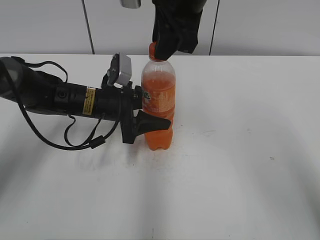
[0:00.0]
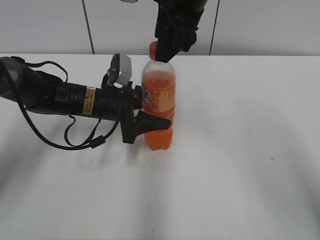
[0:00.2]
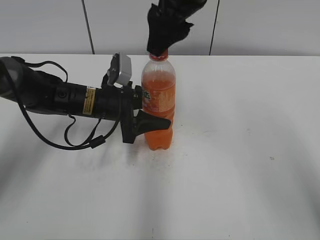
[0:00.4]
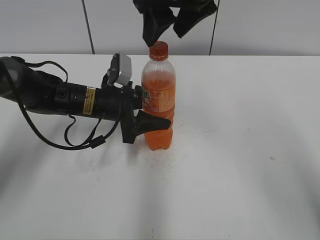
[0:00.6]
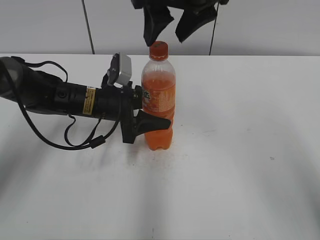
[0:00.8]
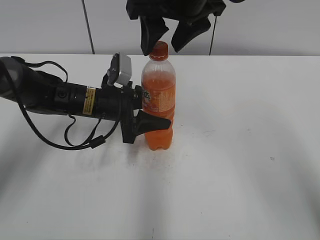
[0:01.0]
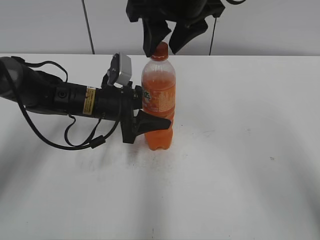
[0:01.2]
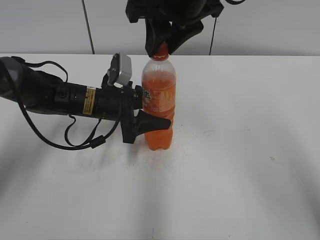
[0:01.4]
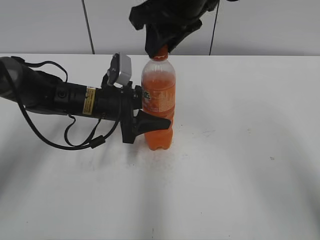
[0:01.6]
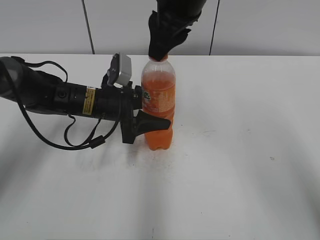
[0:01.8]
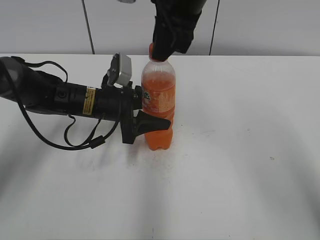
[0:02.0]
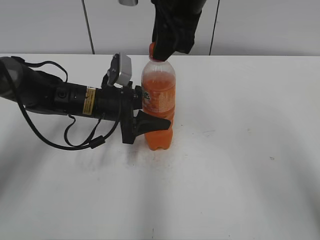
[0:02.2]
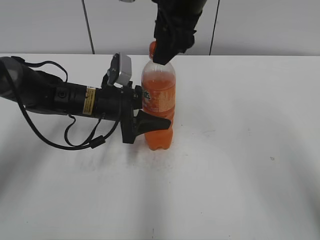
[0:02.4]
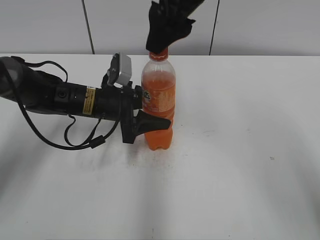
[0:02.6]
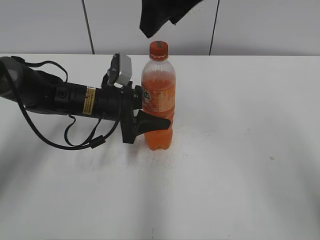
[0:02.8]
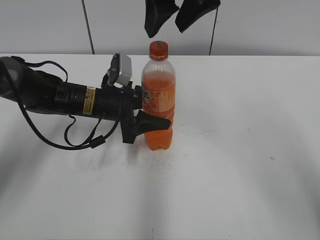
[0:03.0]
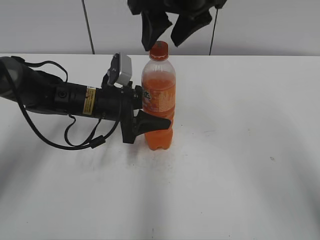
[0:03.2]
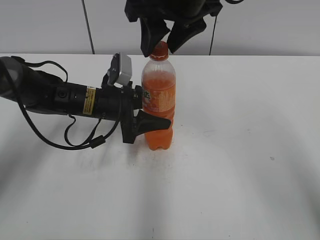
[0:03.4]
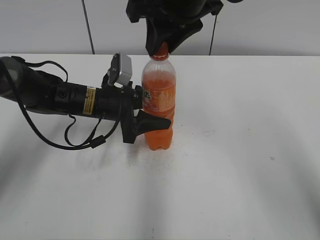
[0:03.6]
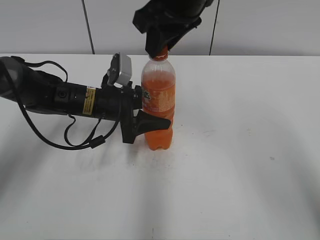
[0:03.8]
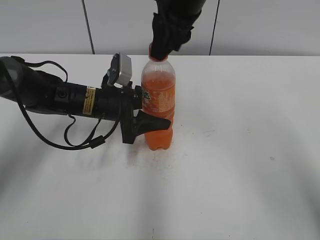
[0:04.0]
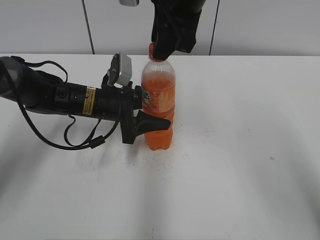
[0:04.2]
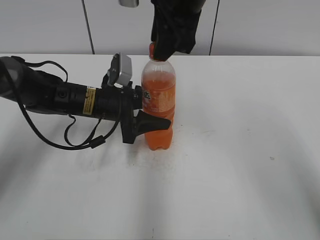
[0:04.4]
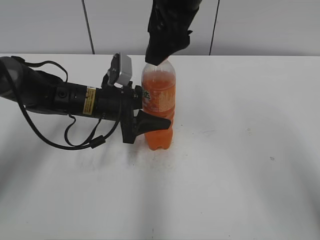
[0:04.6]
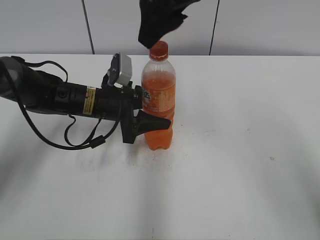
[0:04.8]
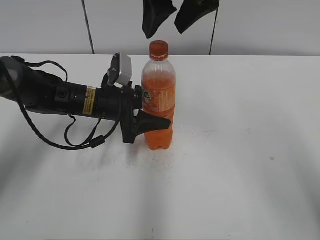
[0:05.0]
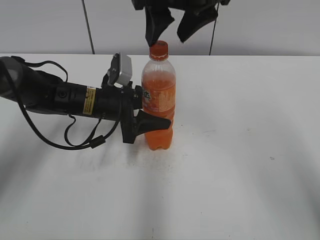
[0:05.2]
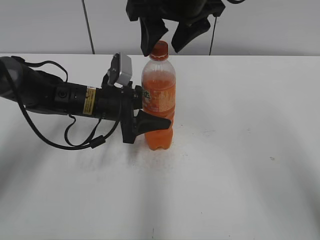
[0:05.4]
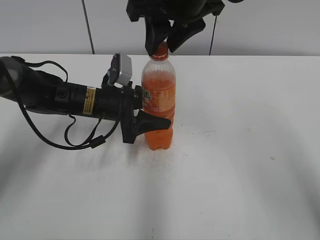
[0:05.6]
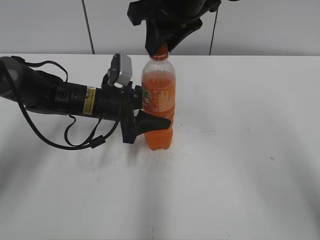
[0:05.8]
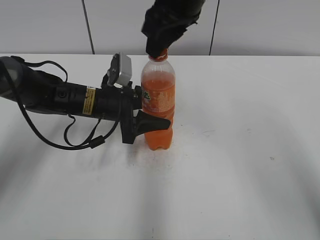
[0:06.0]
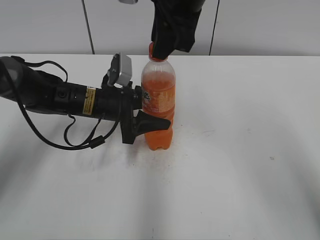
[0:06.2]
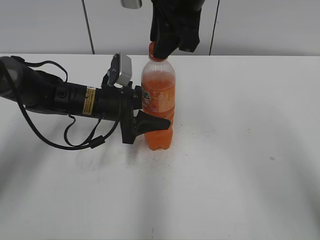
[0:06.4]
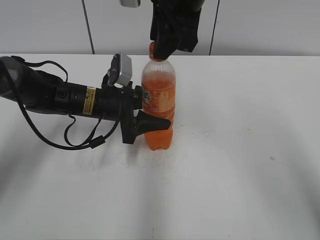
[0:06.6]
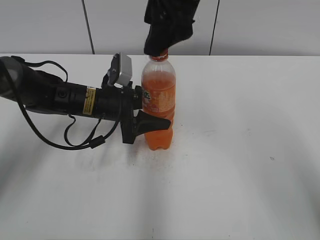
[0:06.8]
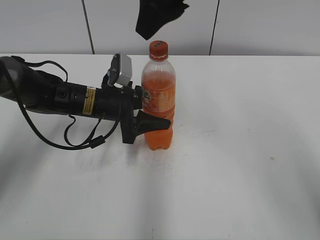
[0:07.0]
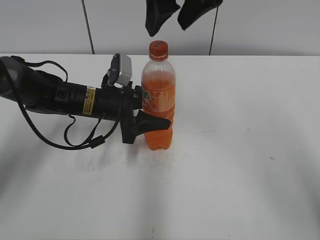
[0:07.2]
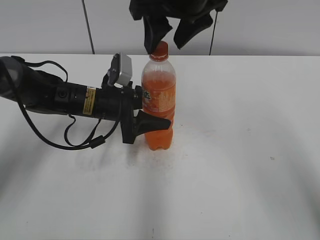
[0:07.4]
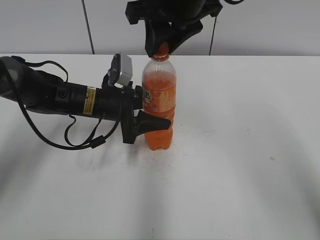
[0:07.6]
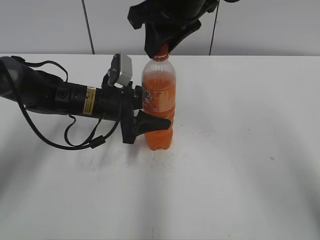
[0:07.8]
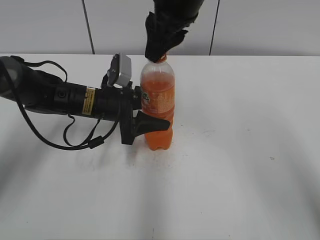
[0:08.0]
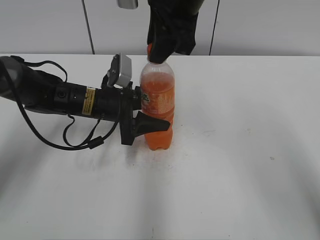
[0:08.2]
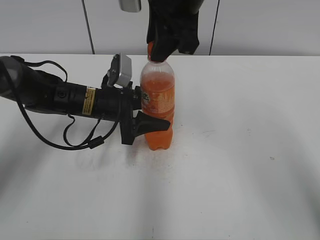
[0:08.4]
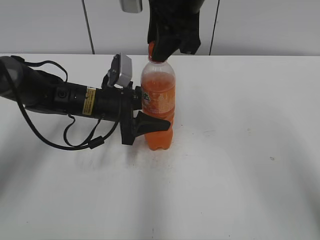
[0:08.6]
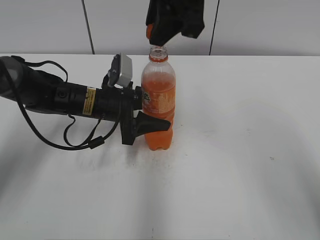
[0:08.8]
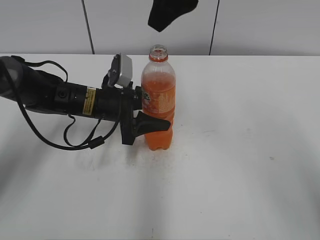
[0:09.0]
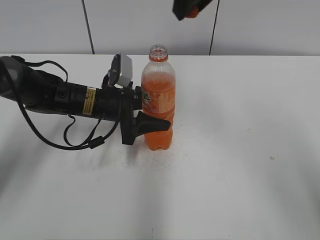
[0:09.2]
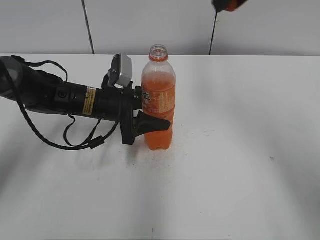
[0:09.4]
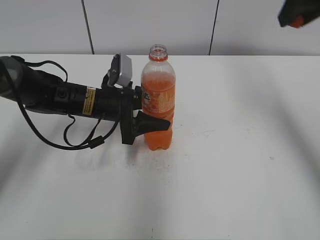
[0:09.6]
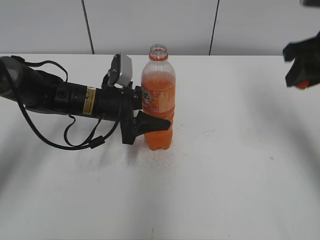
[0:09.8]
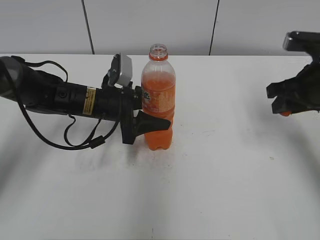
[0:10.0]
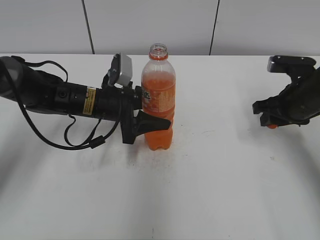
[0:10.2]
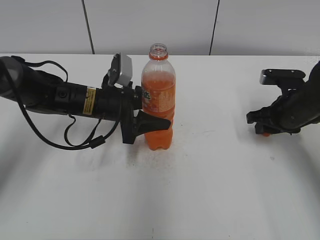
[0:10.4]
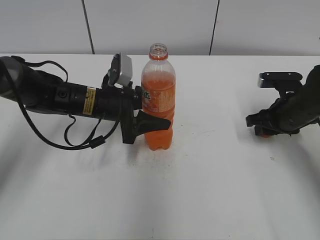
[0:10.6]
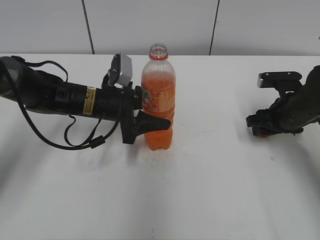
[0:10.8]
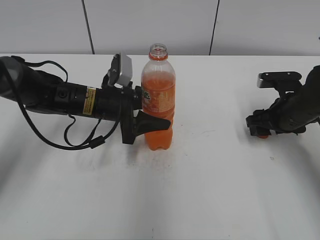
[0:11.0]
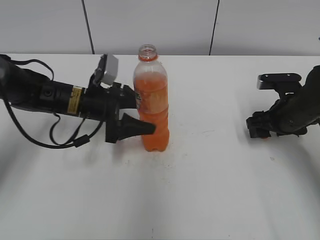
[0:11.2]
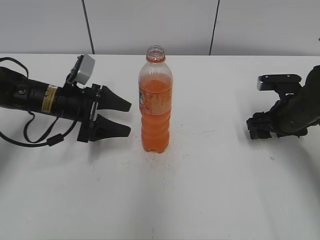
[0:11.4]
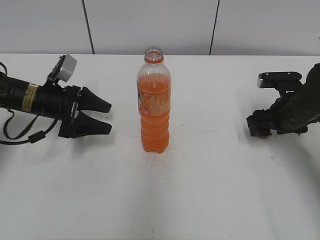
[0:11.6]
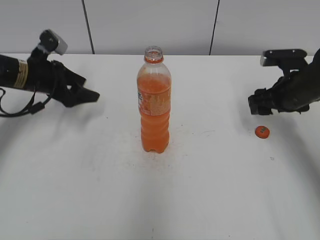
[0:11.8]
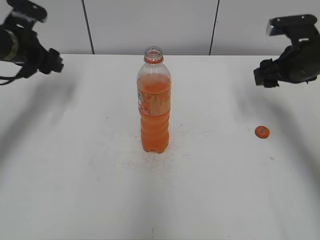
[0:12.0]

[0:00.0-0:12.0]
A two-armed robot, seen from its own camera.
Step, 0:08.8 to 0:11.0: Place the bottle cap on the right.
0:00.0 to 0:01.6: The right gripper opens, then closes once more.
0:01.6 to 0:03.0: The right gripper opens its fingers.
0:03.0 to 0:04.4: The right gripper closes up.
0:04.4 to 0:06.0: The right gripper closes.
0:06.0 to 0:07.6: The right gripper opens, then closes once more.
0:07.6 to 0:09.0: The right gripper heads upward, covering roughly 5 cm.
0:09.0 to 0:10.4: The right gripper shifts approximately 35 cm downward and to the right.
0:10.4 to 0:12.0: The left gripper goes approximately 20 cm to the left and upward, and opens. The right gripper goes about 10 cm upward, and opens.

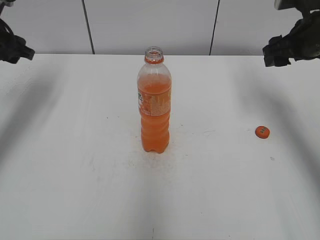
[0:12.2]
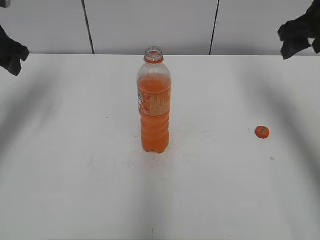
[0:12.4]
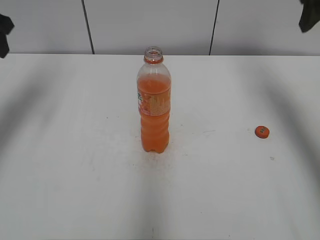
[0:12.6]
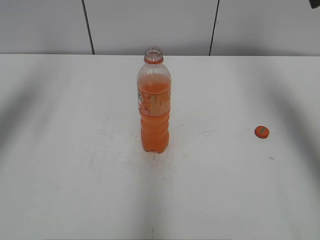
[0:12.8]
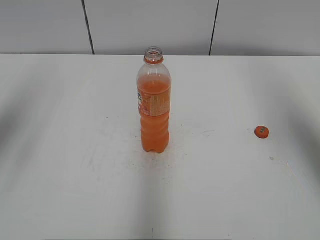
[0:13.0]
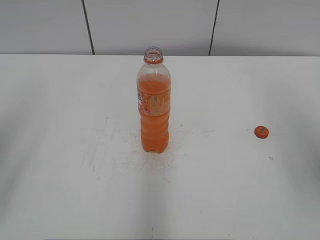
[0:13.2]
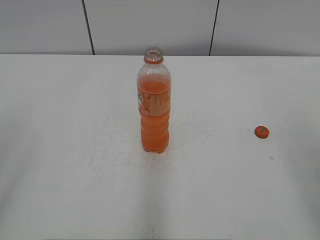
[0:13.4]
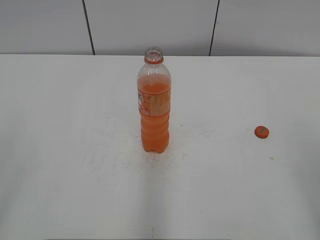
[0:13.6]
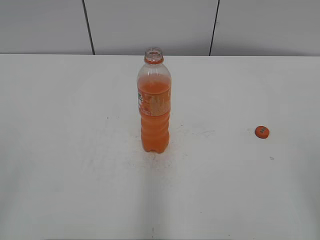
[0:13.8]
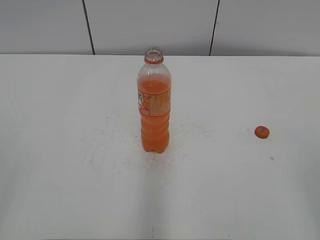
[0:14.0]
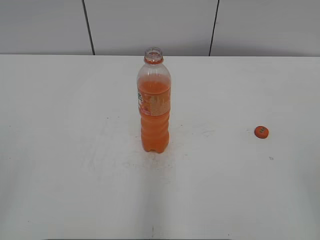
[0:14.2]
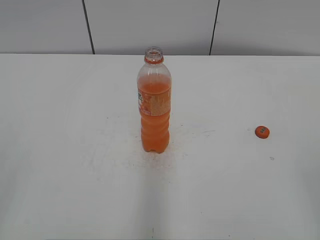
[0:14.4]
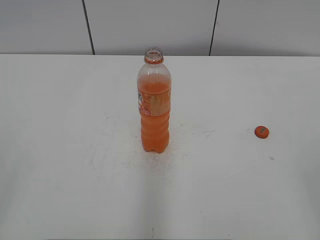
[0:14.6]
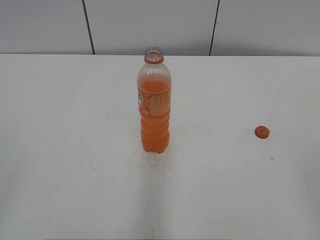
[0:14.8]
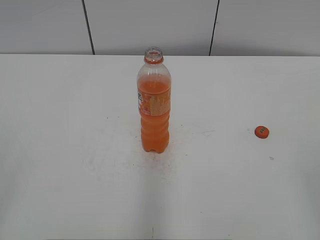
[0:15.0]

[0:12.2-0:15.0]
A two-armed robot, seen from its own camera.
0:12.2 to 0:13.6: Both grippers move backward, about 35 cm.
